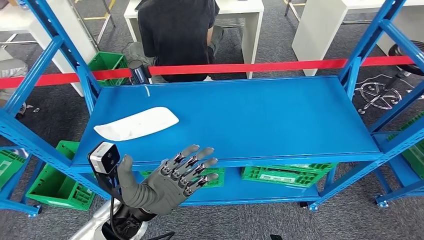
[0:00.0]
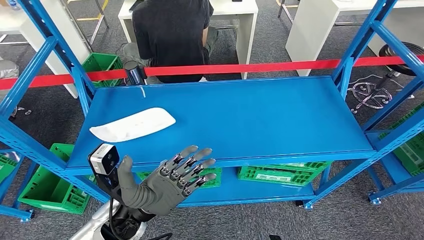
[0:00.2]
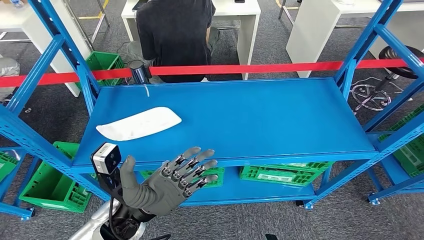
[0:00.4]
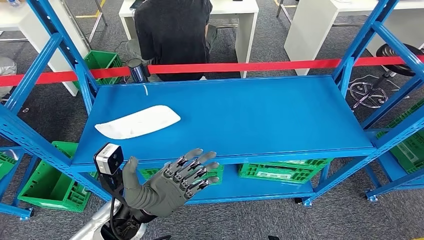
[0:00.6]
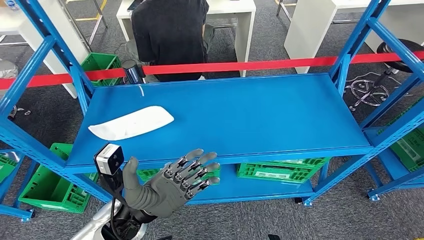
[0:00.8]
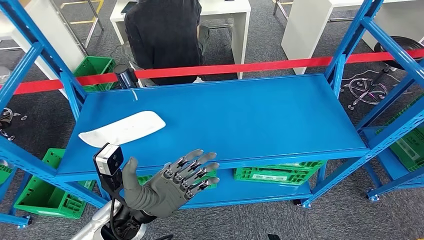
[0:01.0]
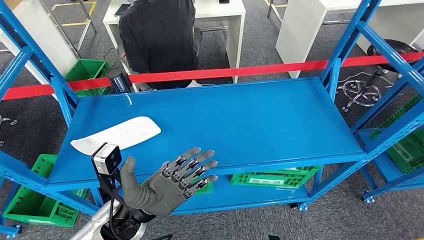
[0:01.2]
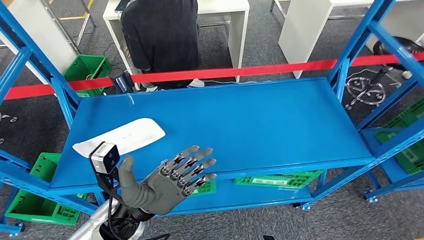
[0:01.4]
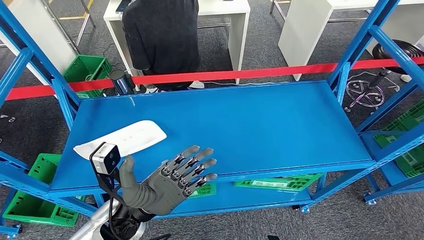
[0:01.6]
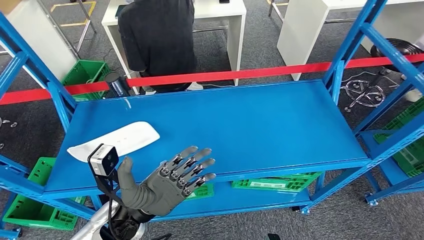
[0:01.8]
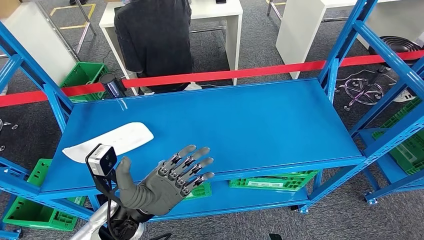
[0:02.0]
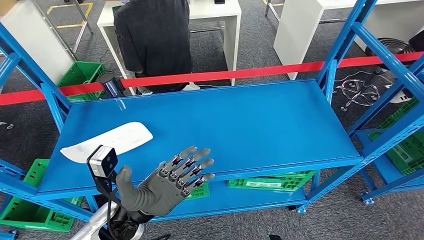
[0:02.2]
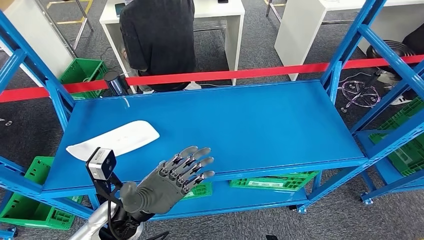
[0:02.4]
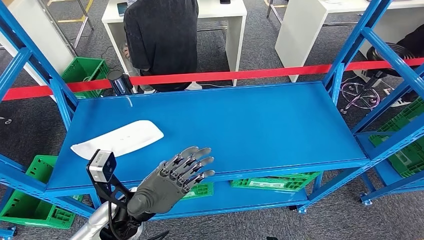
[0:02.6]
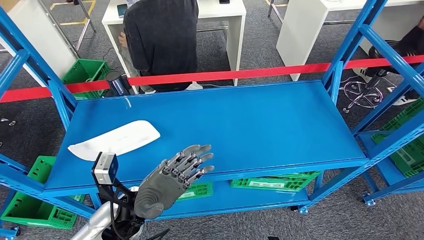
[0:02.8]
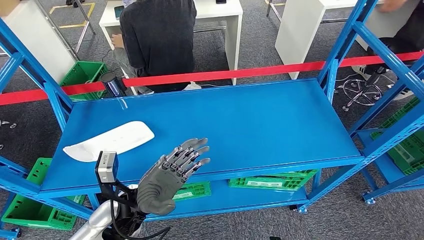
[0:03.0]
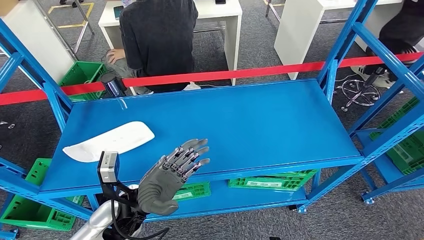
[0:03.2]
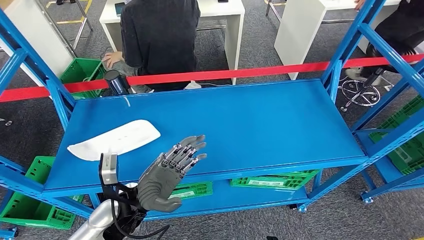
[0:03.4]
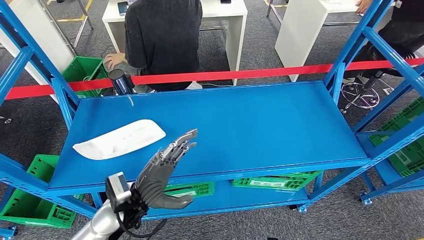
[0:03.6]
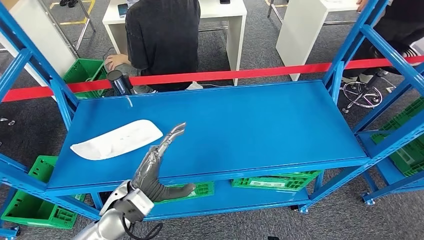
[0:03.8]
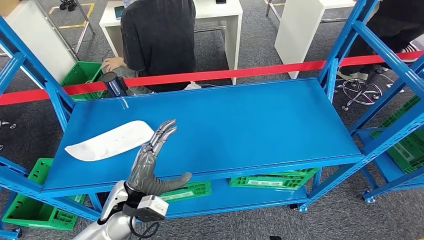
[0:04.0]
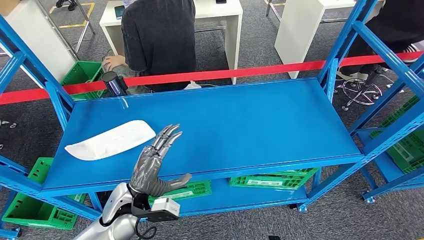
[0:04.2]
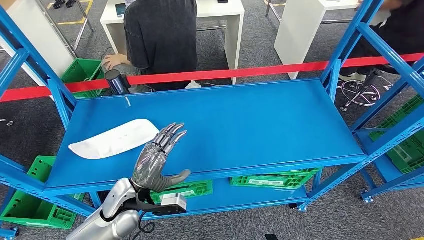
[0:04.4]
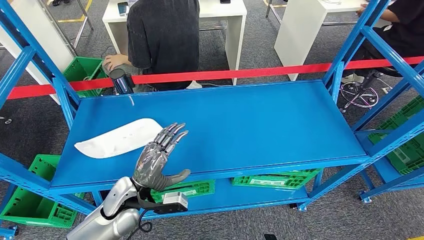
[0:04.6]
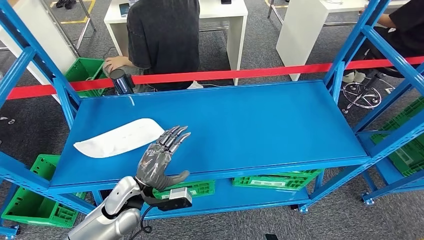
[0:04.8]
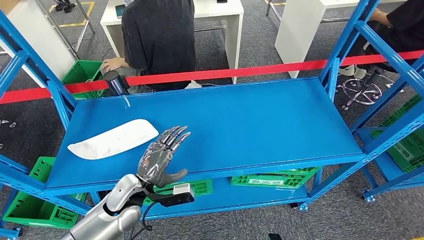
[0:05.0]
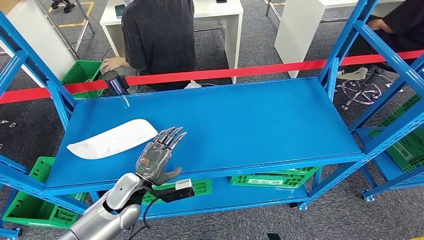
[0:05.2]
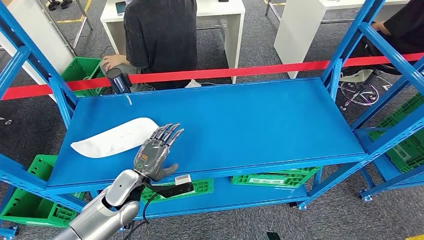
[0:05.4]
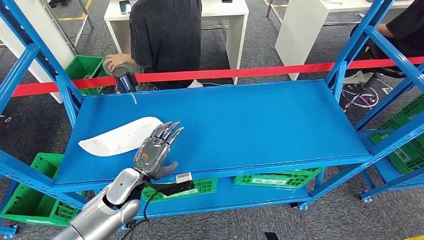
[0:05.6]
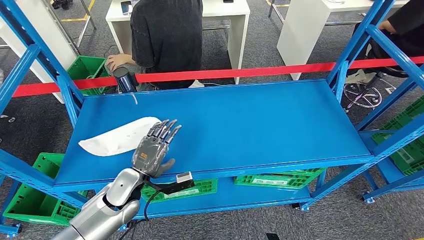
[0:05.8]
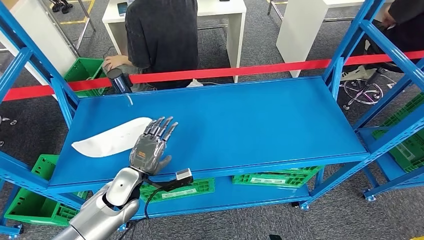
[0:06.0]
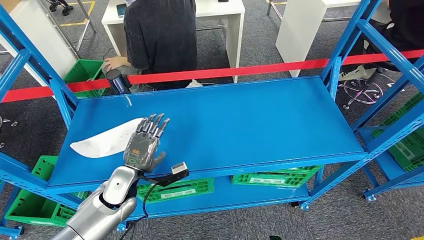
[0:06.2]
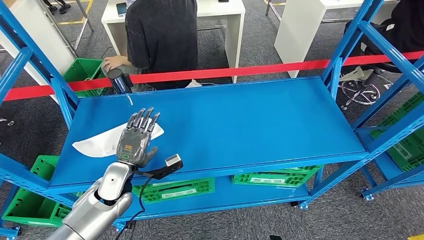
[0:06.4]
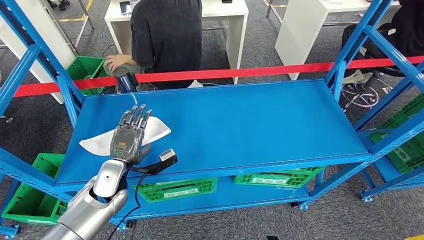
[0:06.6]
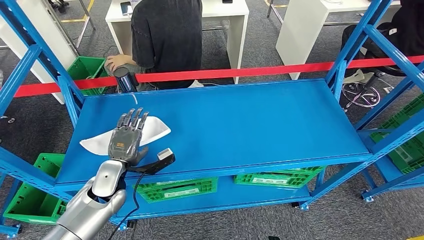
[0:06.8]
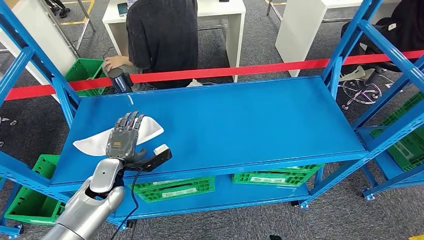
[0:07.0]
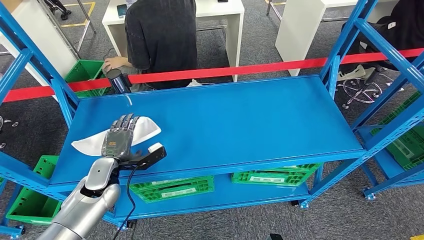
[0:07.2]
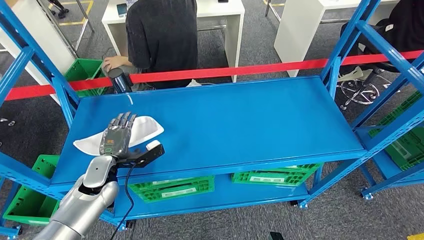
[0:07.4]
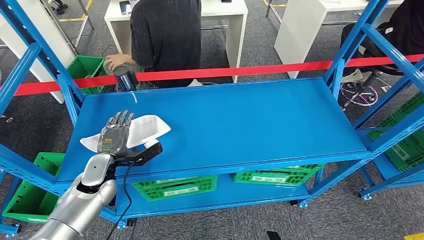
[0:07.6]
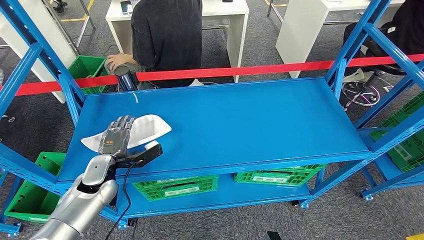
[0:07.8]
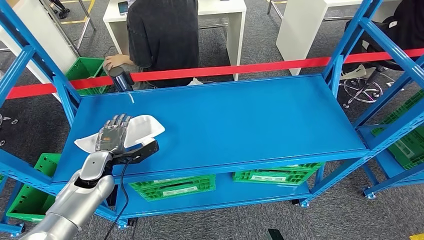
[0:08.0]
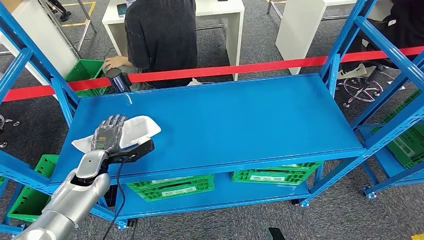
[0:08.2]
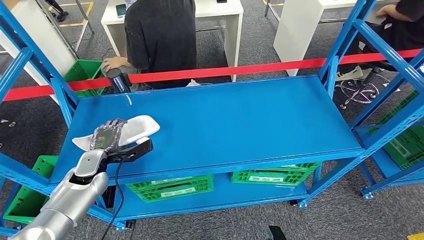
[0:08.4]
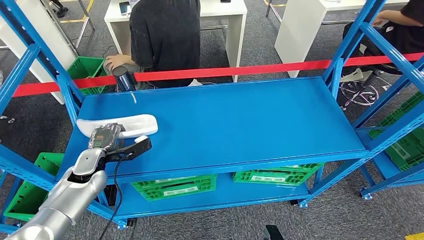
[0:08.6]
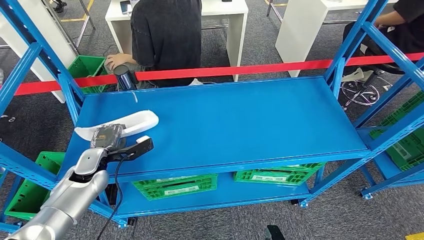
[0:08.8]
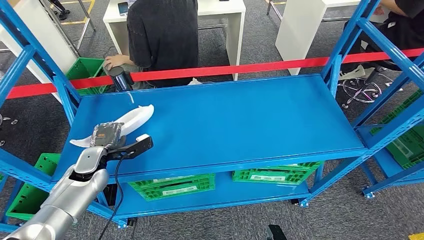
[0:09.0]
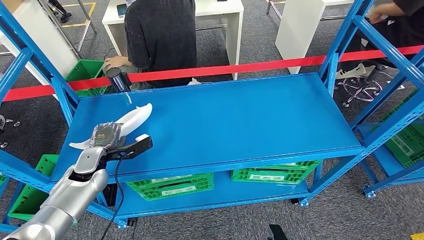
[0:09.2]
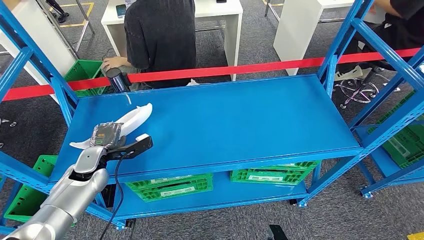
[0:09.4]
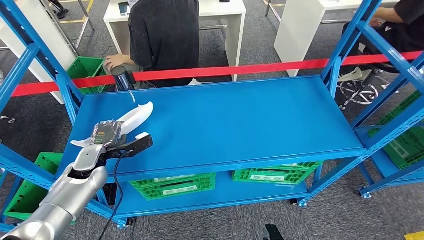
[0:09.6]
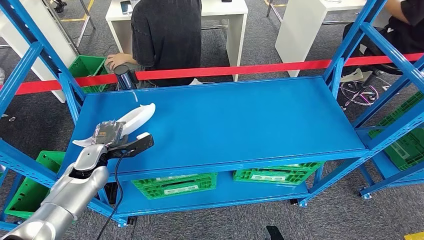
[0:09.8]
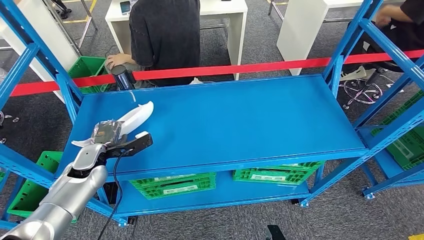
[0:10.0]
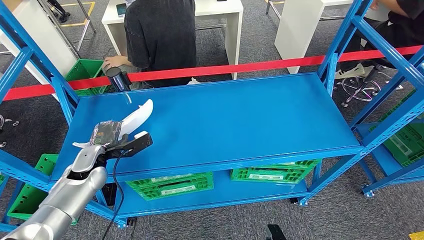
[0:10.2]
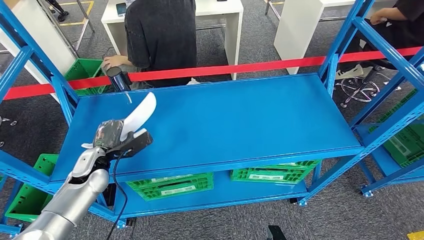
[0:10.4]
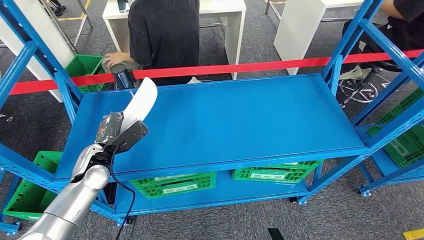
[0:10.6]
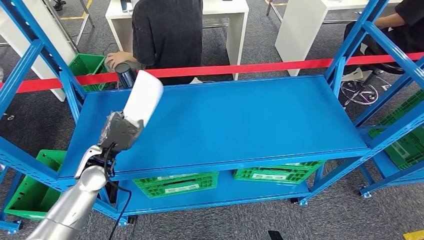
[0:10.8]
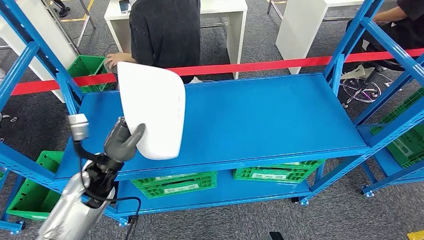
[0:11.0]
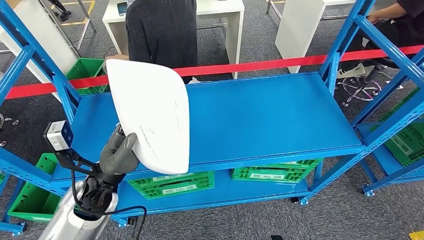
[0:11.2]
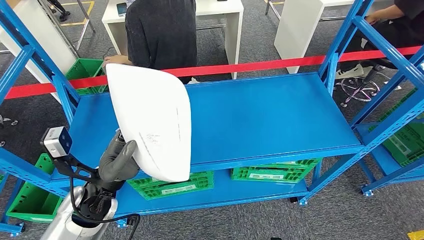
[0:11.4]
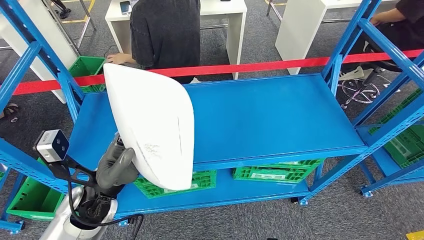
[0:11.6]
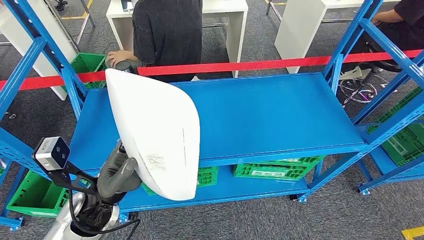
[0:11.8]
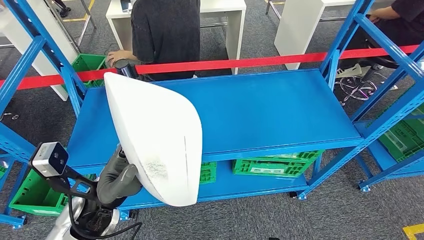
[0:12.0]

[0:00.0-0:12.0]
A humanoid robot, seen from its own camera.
0:09.0 to 0:10.4: There are only small adjustments of the hands.

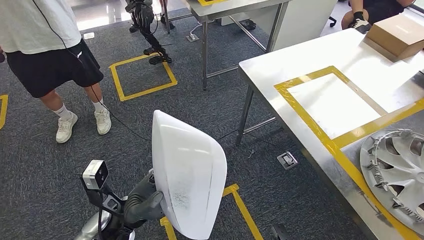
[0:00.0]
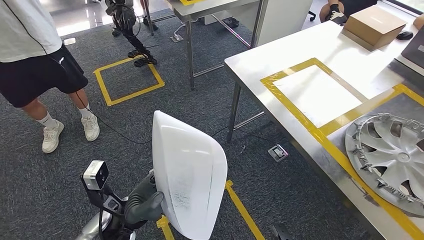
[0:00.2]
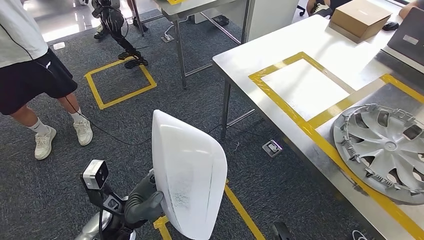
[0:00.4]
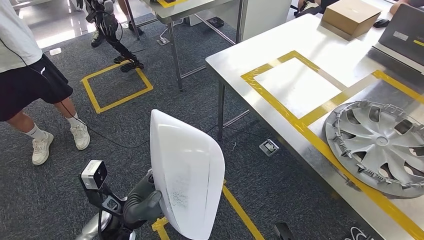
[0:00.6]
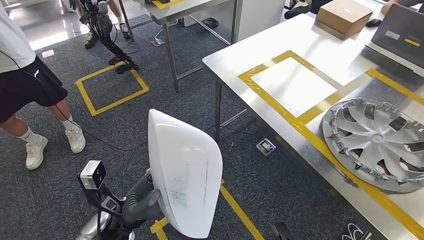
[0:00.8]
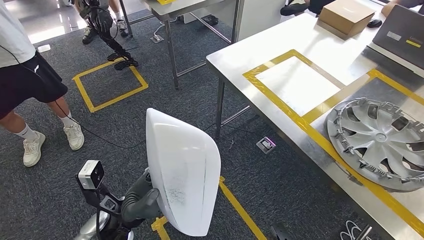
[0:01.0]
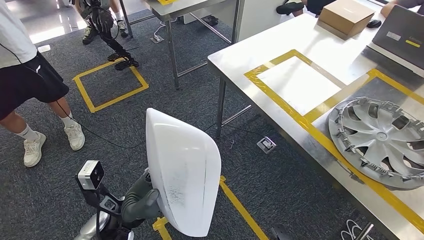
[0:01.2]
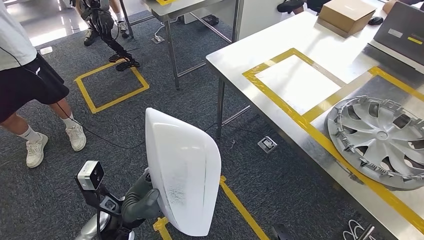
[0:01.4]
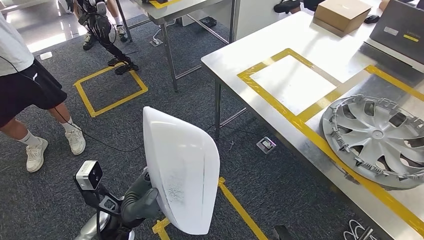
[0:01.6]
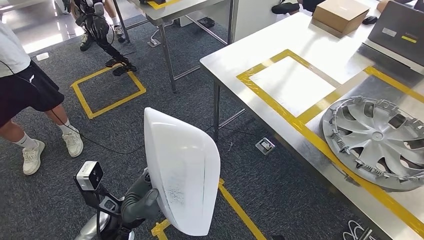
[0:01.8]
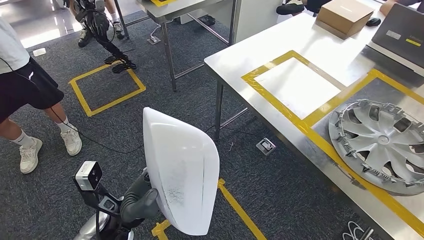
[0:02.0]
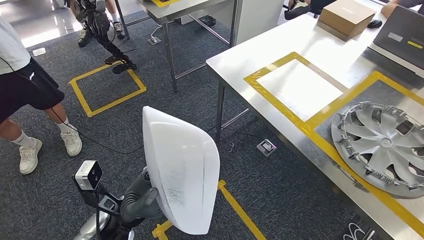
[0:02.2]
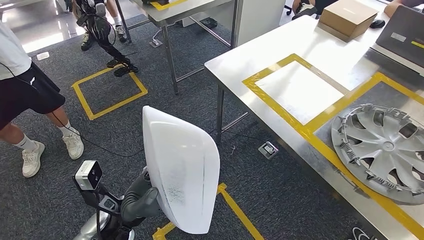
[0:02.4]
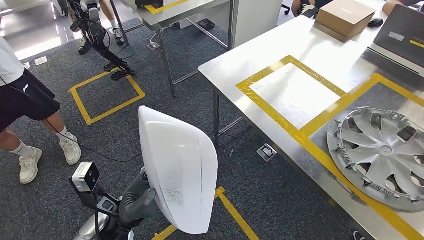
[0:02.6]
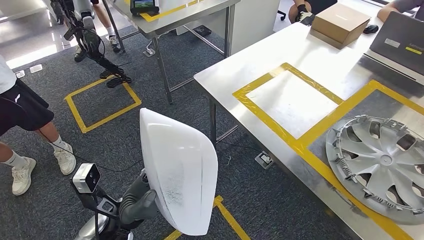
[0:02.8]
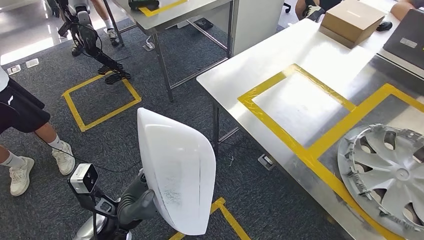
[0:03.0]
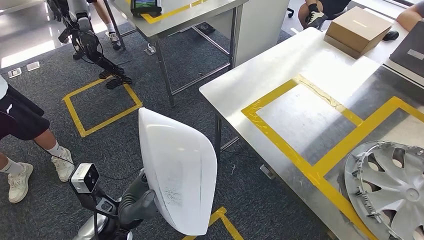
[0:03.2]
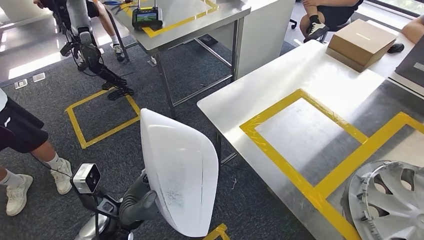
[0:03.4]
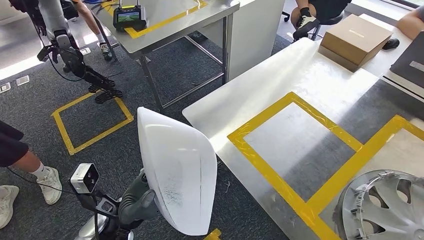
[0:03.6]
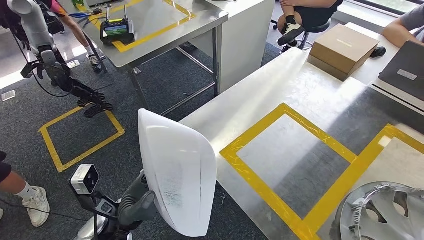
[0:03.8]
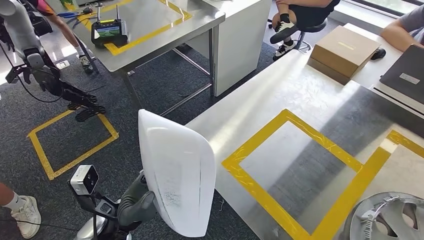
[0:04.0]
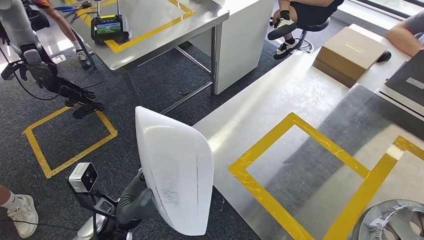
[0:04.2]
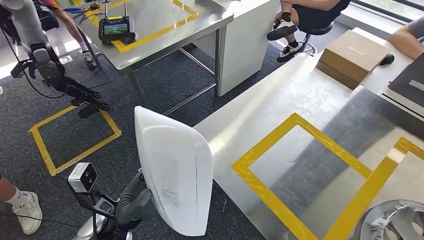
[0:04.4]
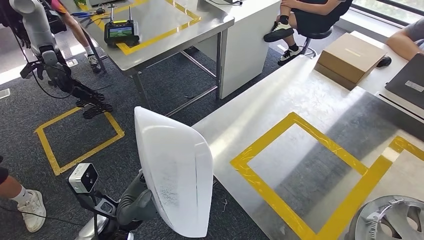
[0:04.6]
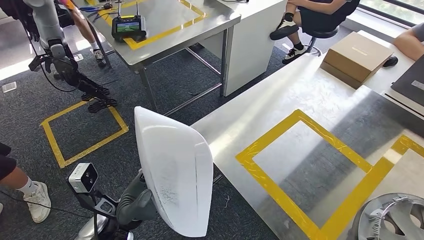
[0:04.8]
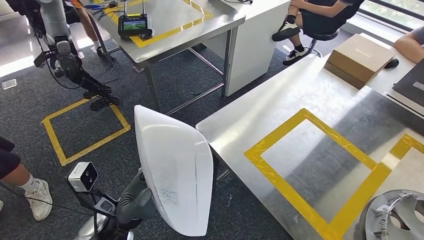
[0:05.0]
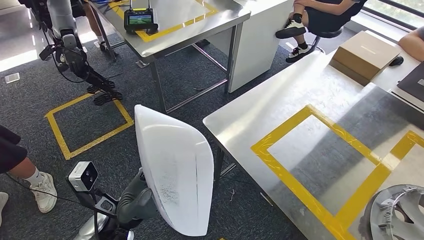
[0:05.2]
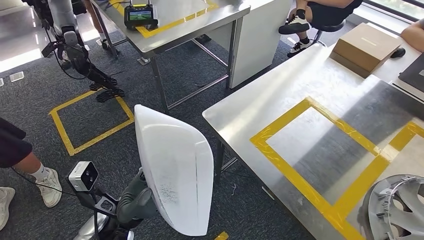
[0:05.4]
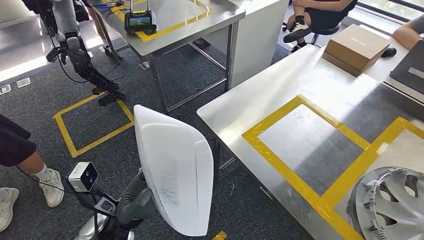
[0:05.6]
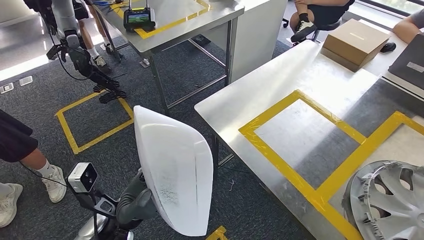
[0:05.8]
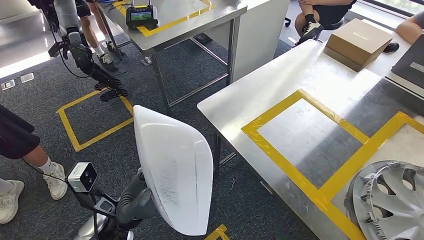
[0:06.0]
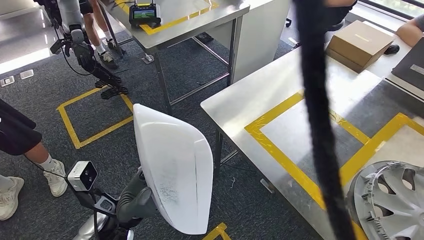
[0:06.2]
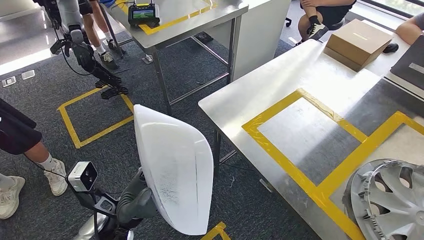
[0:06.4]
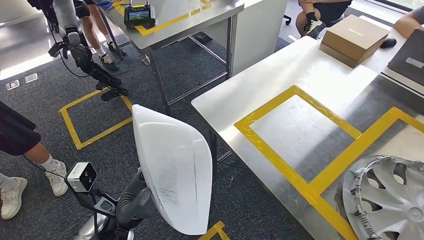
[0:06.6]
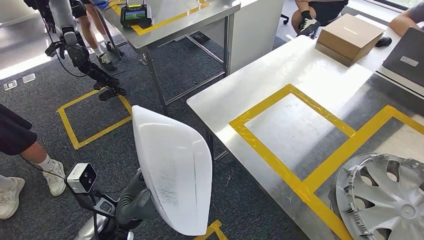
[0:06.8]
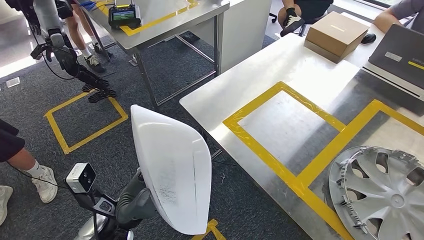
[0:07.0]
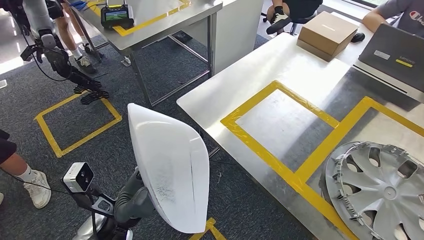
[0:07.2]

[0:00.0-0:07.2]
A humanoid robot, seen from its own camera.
Step, 0:00.0 to 0:07.0: Move the small parts to the workbench.
